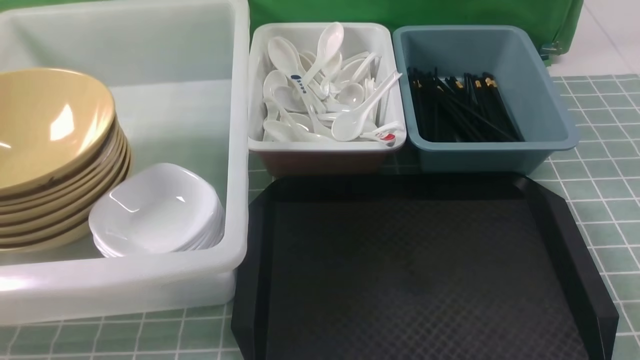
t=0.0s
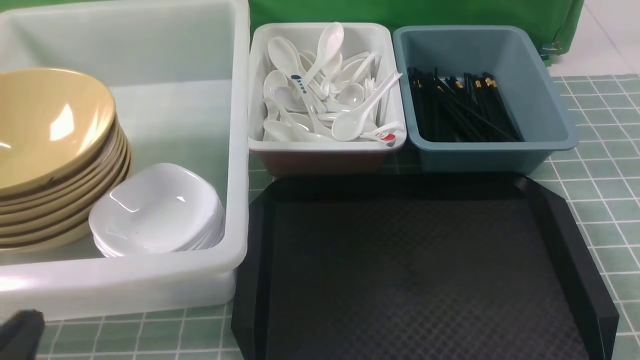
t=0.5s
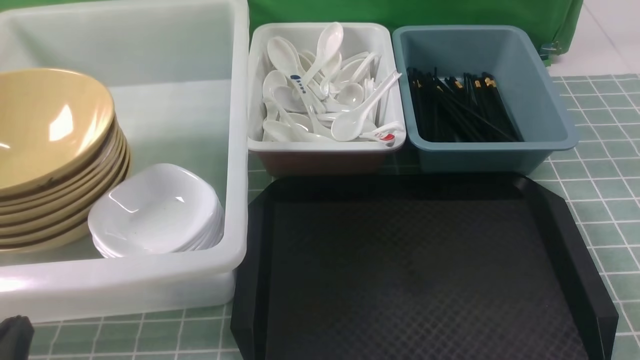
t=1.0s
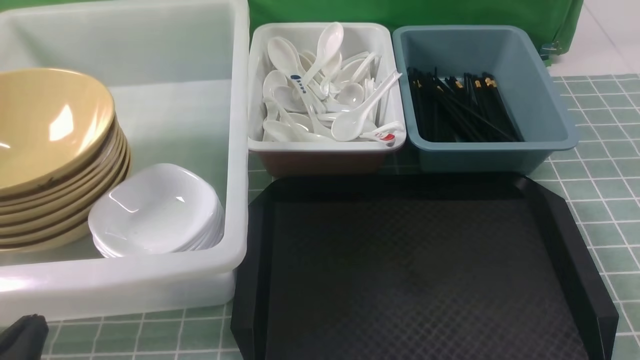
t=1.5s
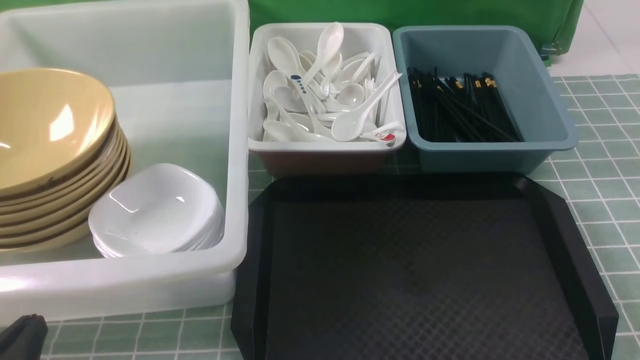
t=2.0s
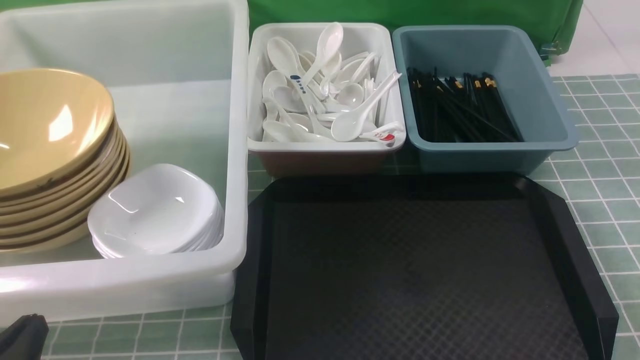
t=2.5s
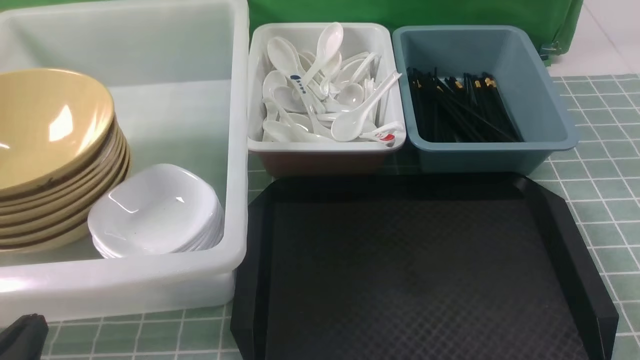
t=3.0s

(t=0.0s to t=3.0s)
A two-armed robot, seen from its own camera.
Task of the whole recording: on blue table put chopsticks spoon bowls plates into blue grey white boxes.
t=0.0s - t=1.5s: The left gripper is displaced downward by some 5 cm.
t=1.5s - t=3.0s: Both grippers stay about where they are.
